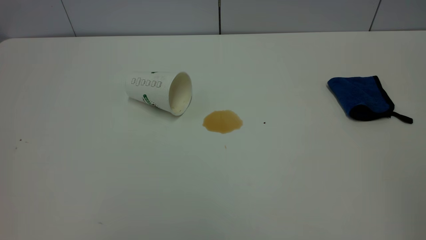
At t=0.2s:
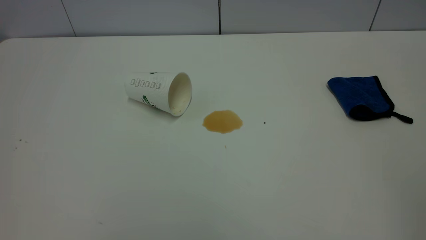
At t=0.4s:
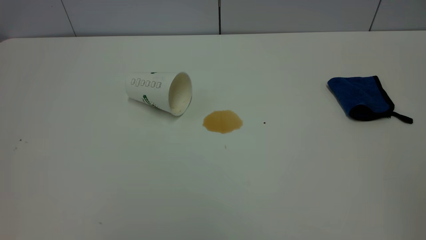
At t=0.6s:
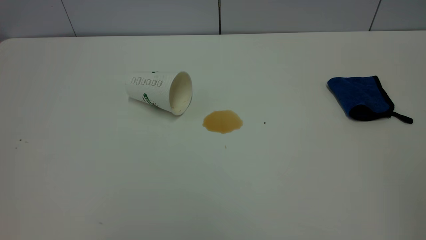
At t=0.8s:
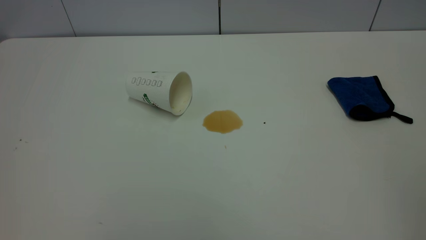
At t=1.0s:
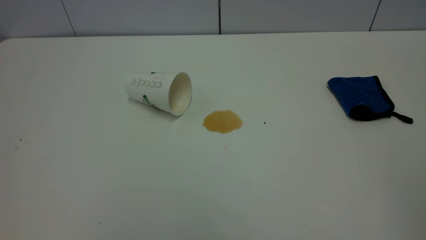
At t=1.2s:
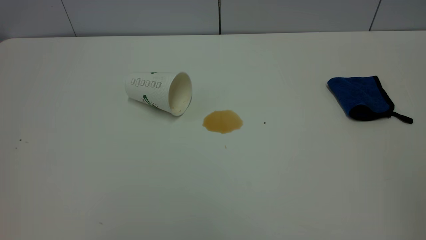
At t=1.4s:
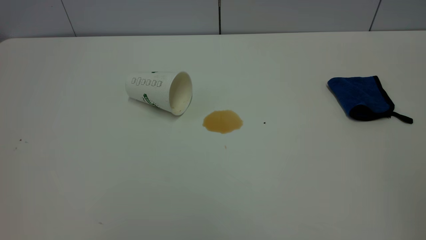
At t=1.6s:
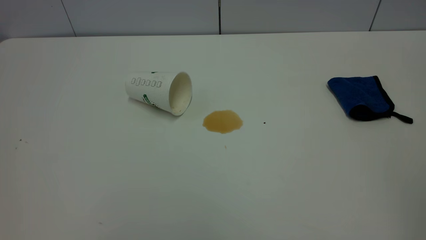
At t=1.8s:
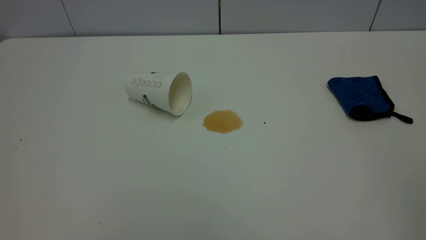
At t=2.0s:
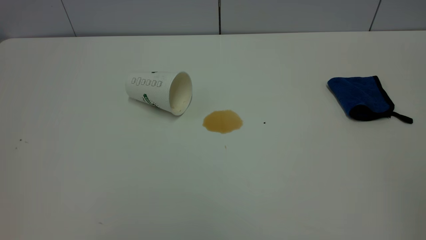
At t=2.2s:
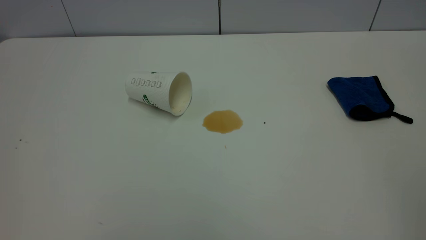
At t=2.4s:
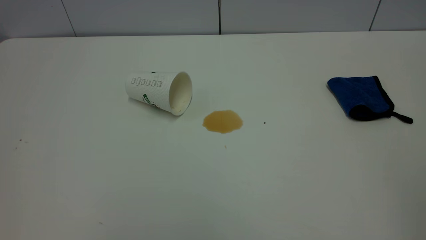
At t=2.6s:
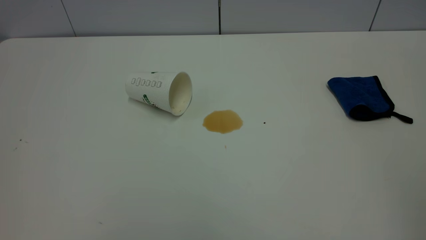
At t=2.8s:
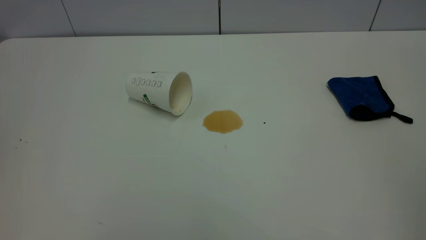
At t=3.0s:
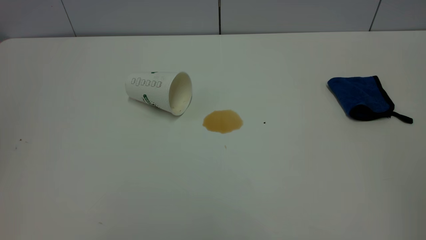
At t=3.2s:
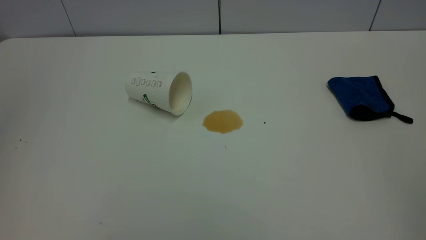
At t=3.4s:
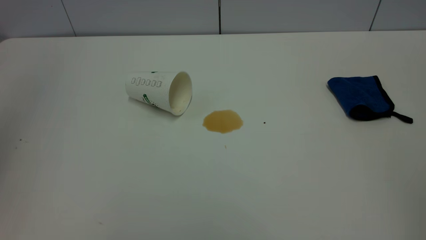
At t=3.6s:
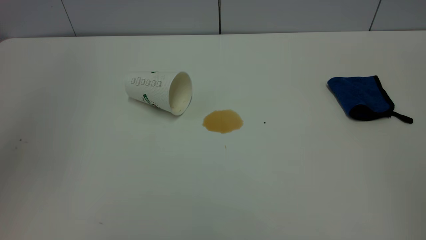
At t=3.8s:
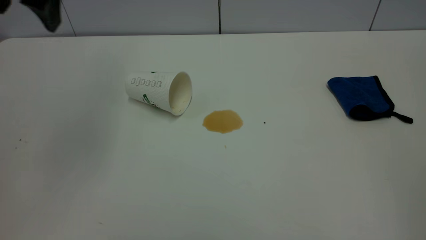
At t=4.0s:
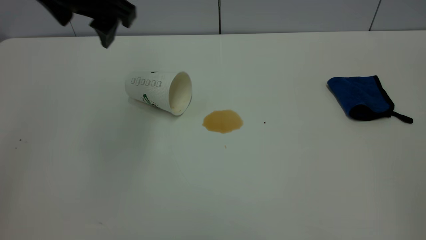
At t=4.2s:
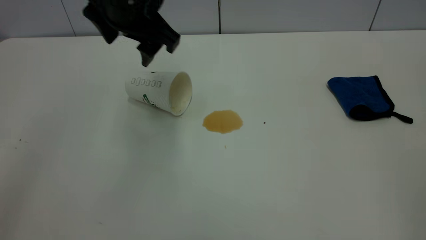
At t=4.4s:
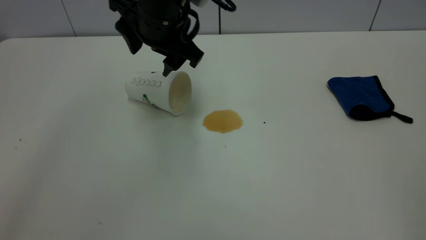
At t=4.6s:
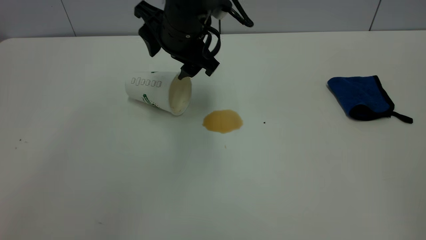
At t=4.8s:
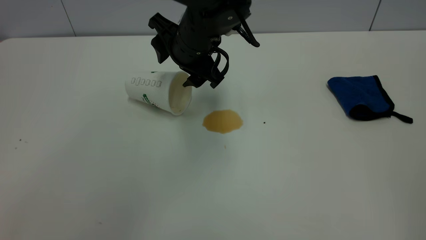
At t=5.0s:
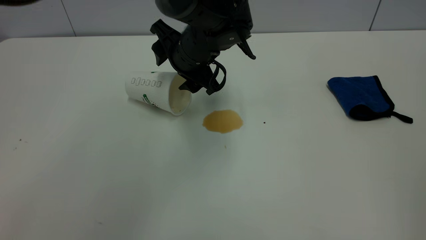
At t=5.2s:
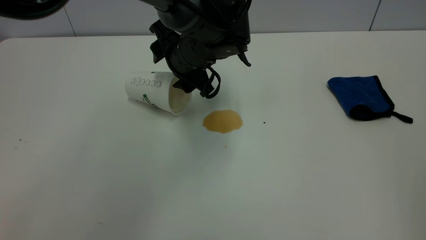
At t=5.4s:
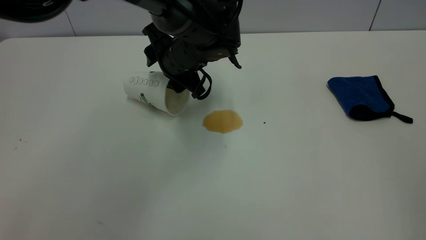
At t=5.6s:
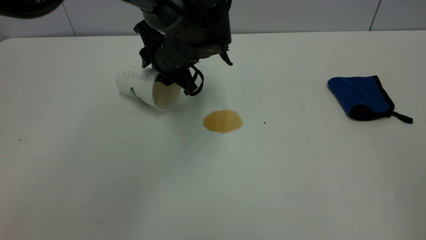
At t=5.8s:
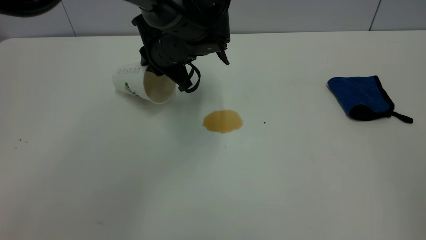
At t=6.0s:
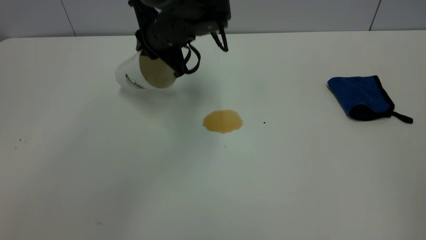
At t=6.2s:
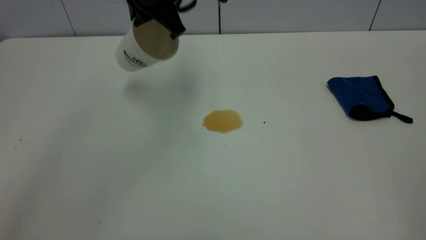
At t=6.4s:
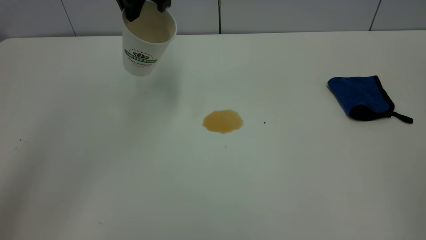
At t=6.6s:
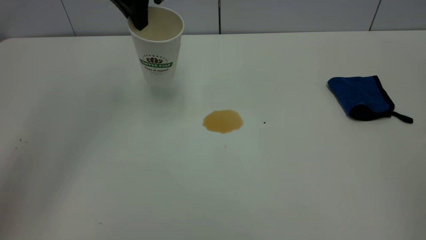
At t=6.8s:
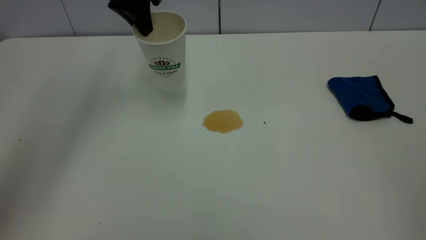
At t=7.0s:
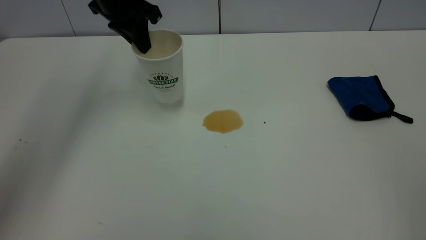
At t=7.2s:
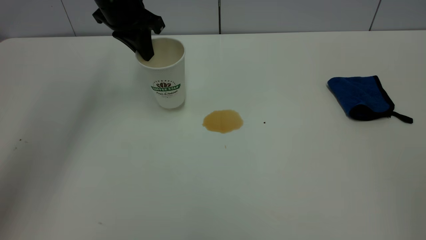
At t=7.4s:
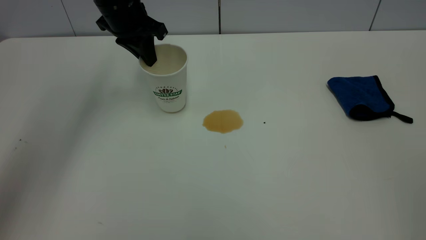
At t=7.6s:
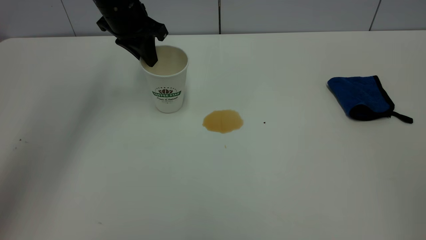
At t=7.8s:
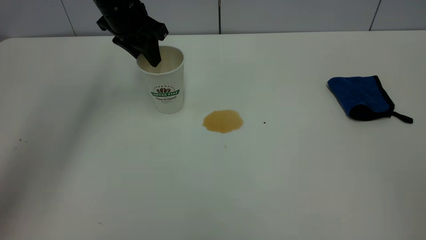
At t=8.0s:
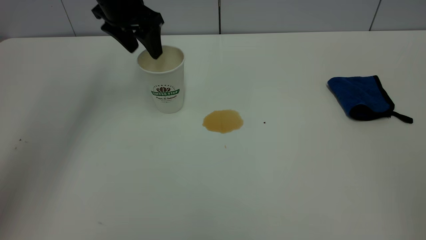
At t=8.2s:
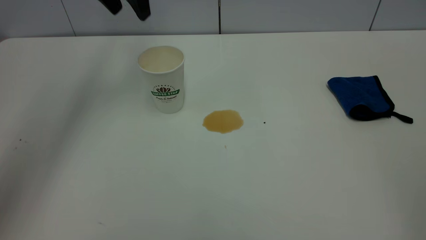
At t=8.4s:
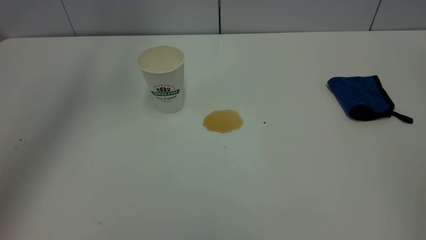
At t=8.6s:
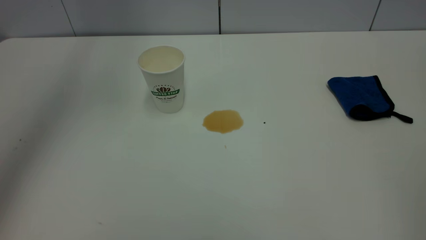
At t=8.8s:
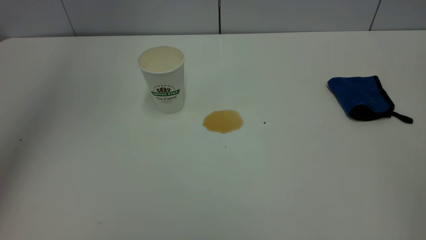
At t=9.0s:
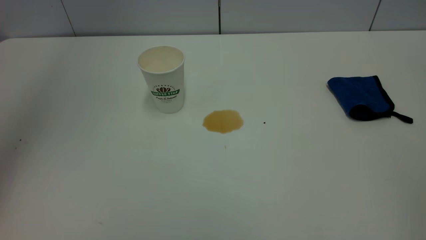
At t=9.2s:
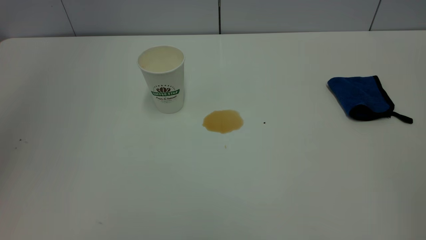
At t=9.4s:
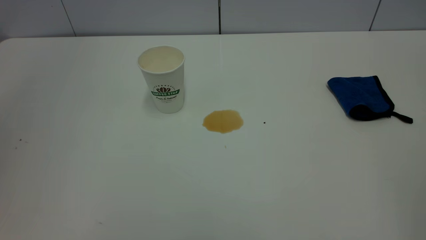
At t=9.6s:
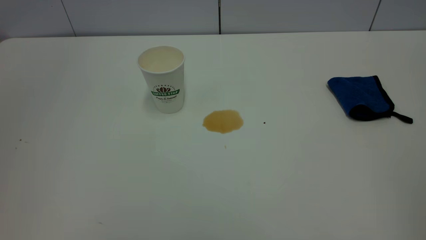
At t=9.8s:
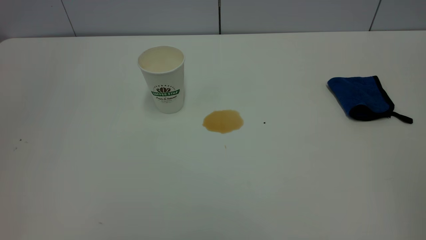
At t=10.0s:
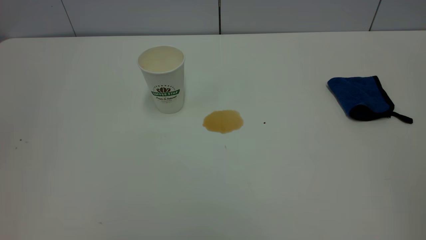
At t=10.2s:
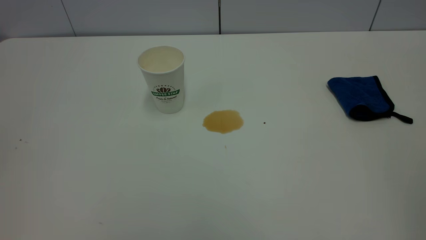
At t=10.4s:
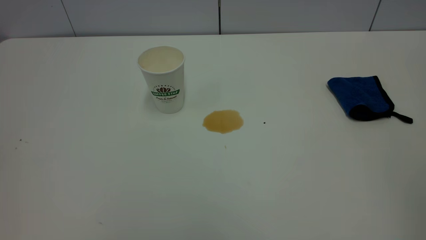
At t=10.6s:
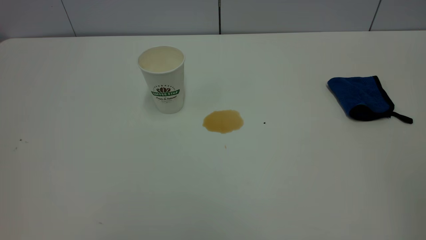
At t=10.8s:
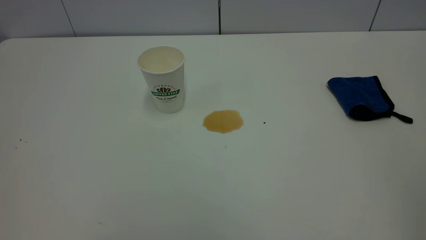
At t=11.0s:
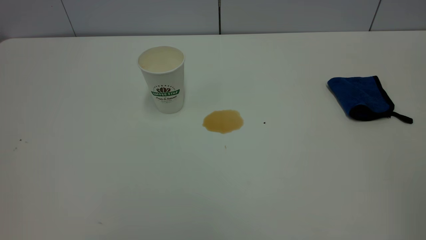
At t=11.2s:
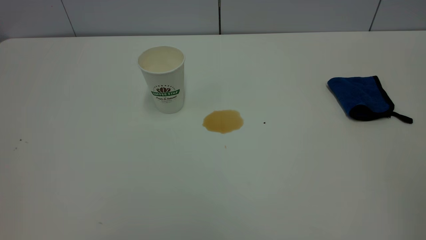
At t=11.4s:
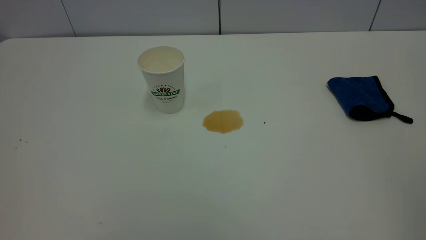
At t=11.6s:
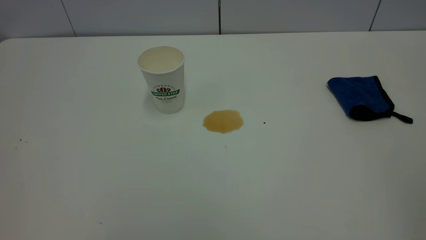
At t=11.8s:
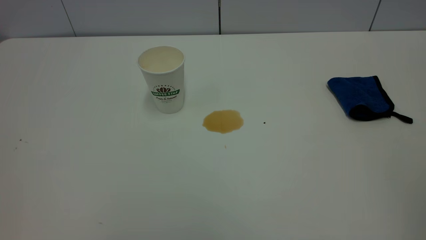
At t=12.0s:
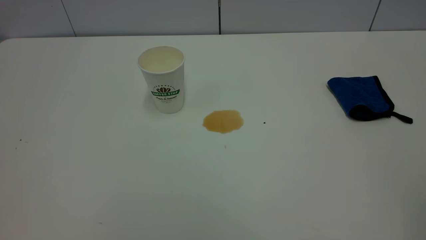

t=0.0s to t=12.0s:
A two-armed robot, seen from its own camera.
Task of the whole recording: the left gripper pick up the fallen cup and place it upright, the right gripper grasp the blue rag and wipe the tea stain on the table, the right gripper put the blue rag back in its original position.
Step, t=0.0s to t=8.0s: Stand the paper cup upright.
t=0.0s to t=1.6s: Both grippers stay about where they are.
t=3.0s to t=4.4s: The left gripper moves to the right, forward and downward, about 40 cm.
t=4.4s to t=6.0s: The left gripper goes approximately 5 cm forward, reaches about 10 cm downward, then returns, and closes its fingers.
t=6.0s to t=7.6s: The left gripper travels to the left and forward by about 10 cm.
t=7.6s to t=9.0s: The left gripper goes about 35 cm upward and backward, and opens up.
t=9.0s to t=10.4s: The left gripper shifts about 35 cm backward and downward.

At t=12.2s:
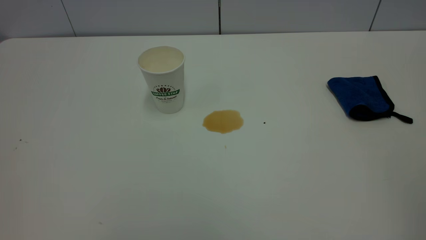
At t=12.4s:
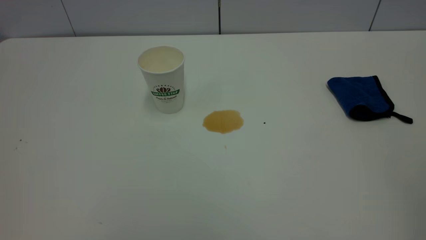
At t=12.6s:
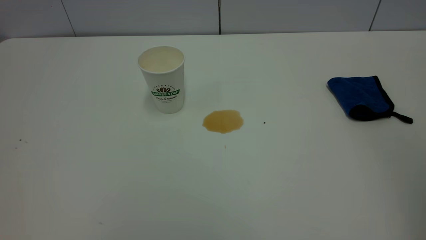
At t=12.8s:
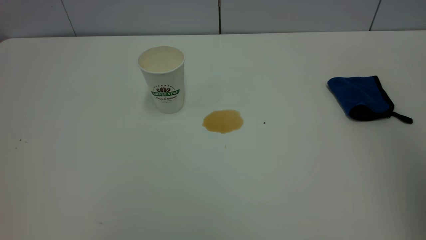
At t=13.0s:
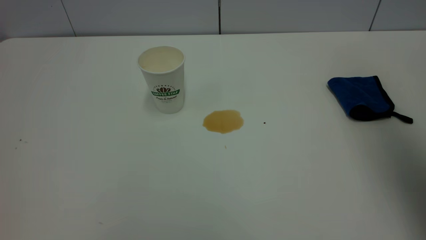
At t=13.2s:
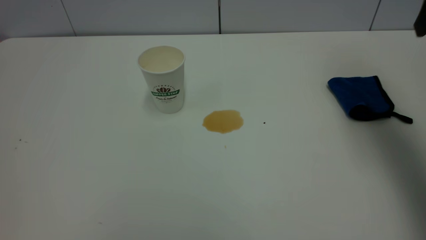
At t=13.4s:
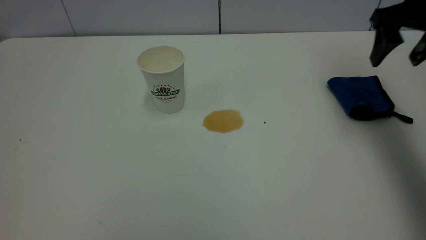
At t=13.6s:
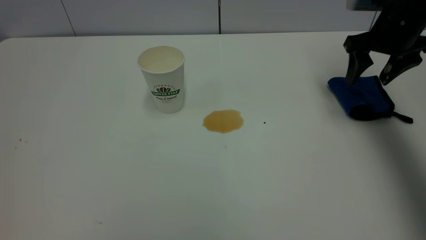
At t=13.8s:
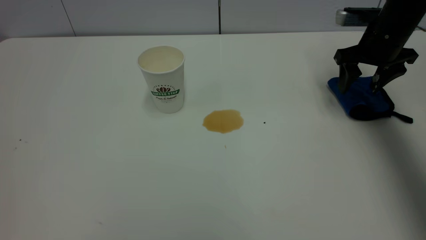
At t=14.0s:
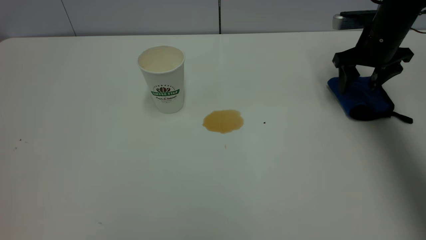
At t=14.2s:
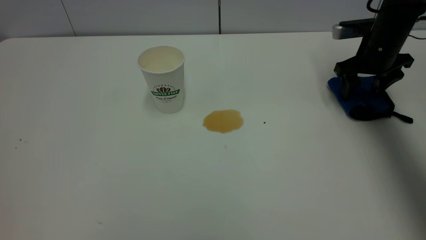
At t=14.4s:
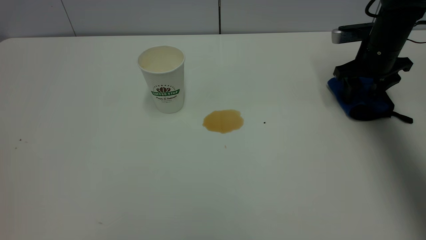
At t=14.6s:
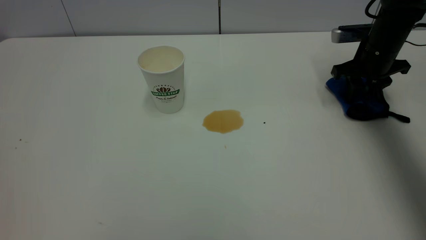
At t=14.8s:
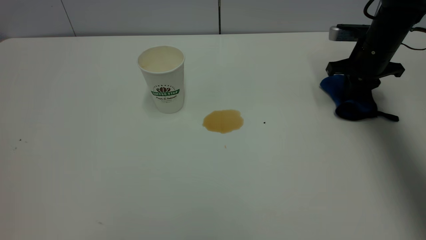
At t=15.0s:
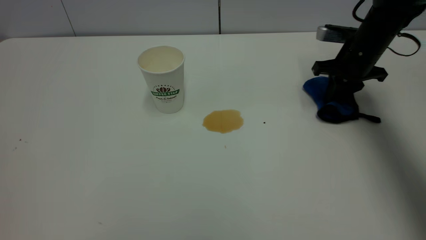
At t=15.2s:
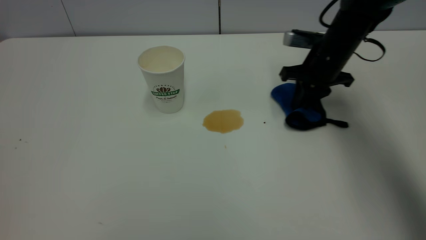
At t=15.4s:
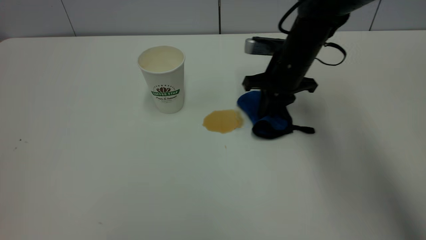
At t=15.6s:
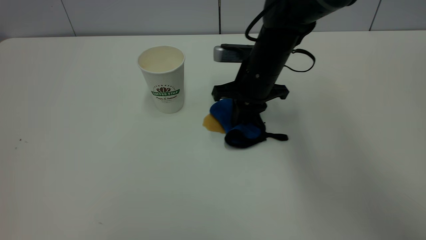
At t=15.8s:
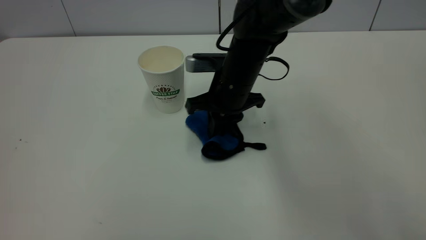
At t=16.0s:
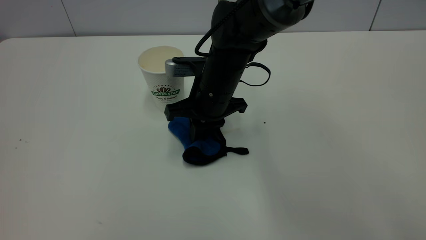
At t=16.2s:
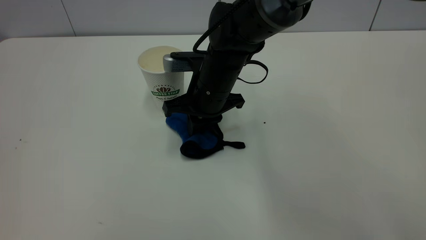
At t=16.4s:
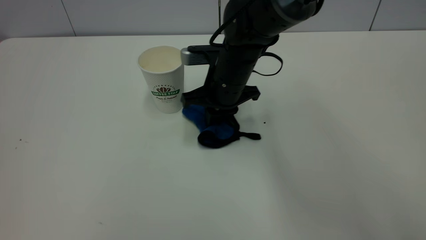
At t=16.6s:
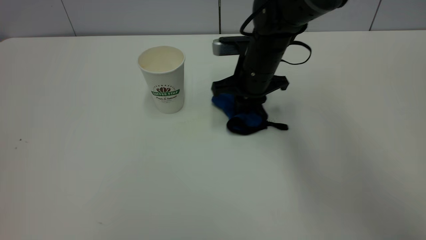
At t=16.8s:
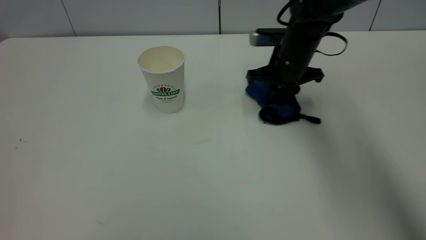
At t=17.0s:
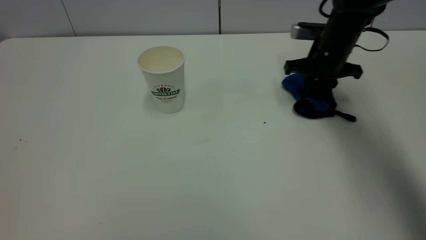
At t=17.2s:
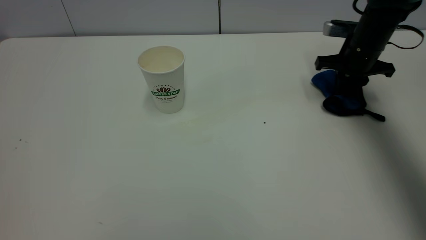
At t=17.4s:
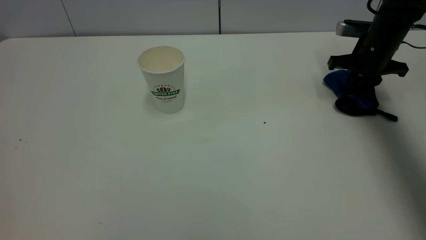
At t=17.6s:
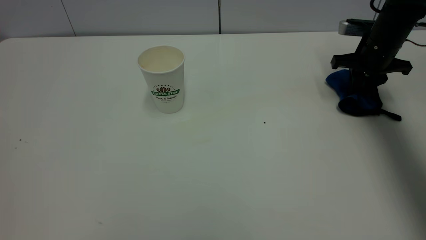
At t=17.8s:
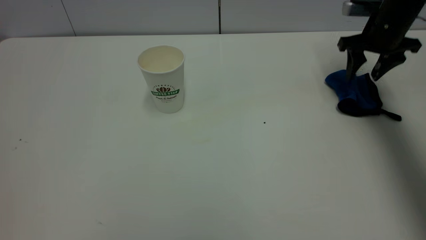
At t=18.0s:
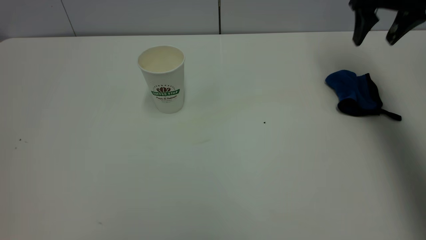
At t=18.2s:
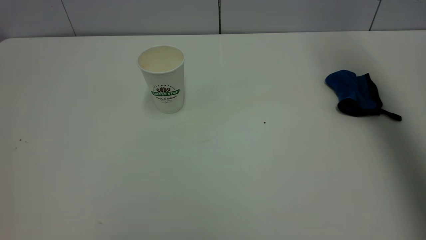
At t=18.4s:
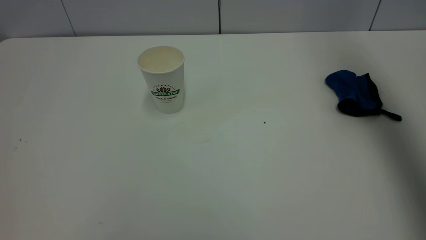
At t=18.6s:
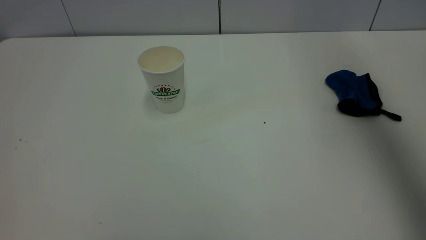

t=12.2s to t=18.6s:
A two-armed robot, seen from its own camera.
Task of the whole recording: the left gripper pick up the fallen cup and place it upright, the right gripper grasp the blue rag and wipe the tea stain on the table, the right gripper put the blue rag back in its original position.
Step, t=12.2s to t=18.0s: Wipe the stains off the table with a rag.
t=12.2s to t=13.8s: The right gripper goes about 50 cm forward and downward, and opens its fingers.
t=13.8s to t=15.4s: The right gripper moves to the left, about 15 cm, and closes its fingers.
t=15.4s to t=17.0s: The right gripper shifts some 10 cm to the right.
t=17.0s to t=18.6s: The right gripper goes some 40 cm upward and backward, and opens.
